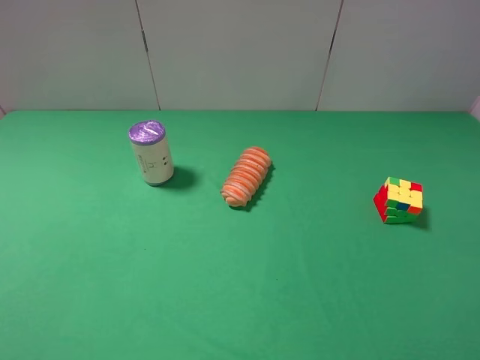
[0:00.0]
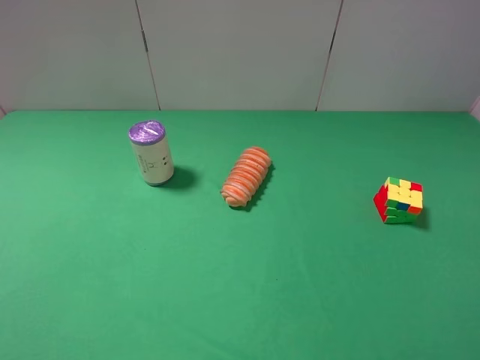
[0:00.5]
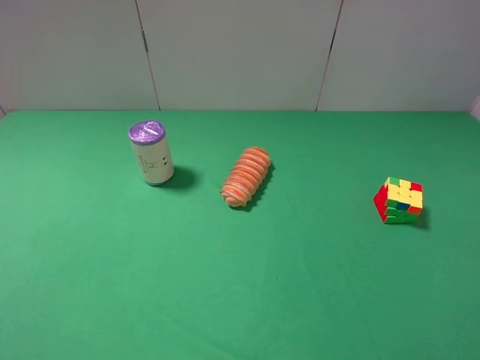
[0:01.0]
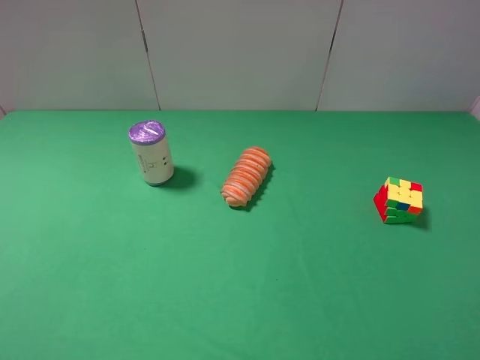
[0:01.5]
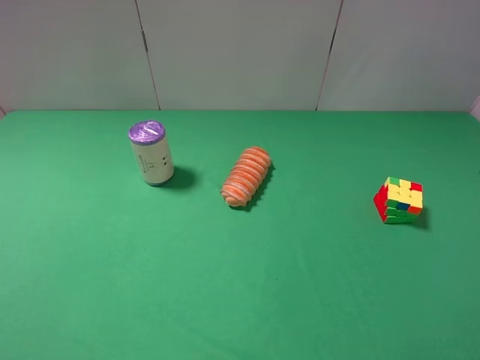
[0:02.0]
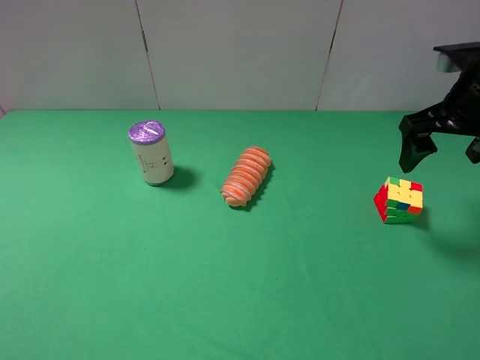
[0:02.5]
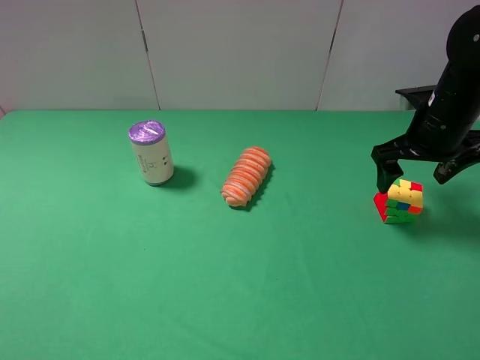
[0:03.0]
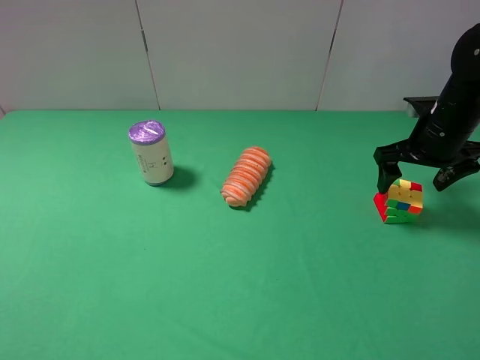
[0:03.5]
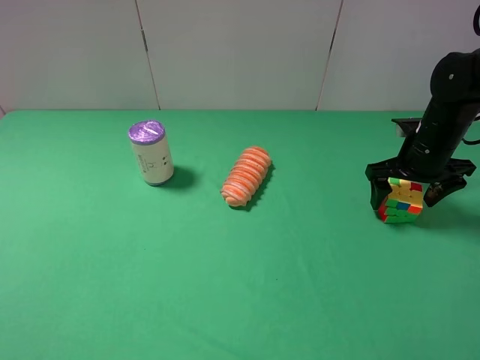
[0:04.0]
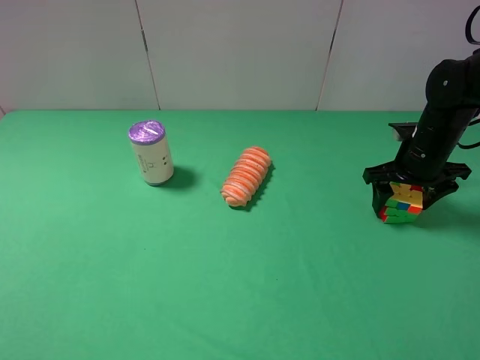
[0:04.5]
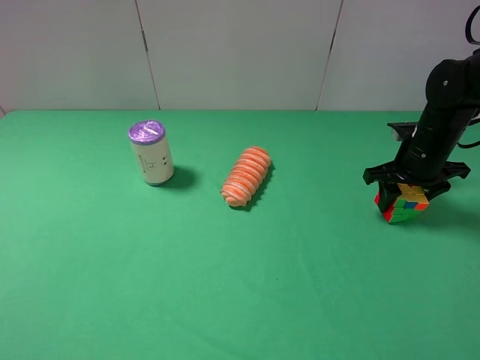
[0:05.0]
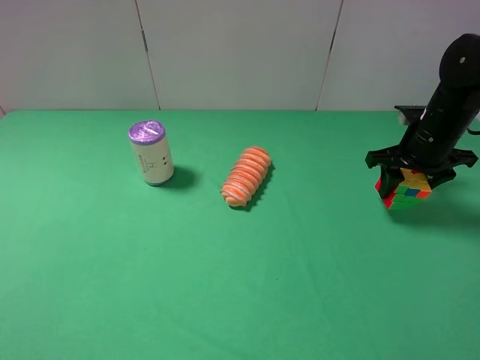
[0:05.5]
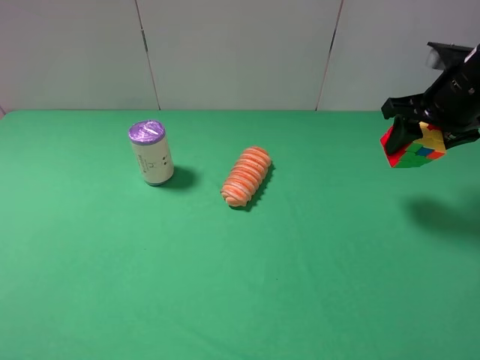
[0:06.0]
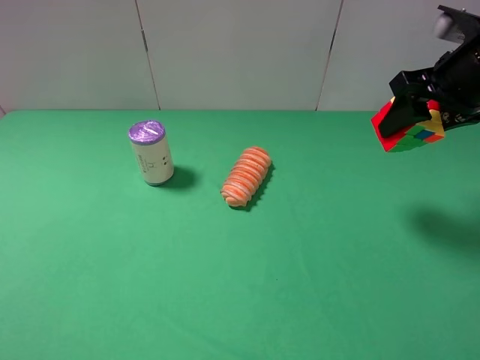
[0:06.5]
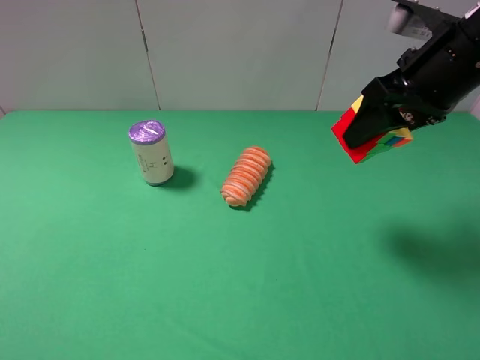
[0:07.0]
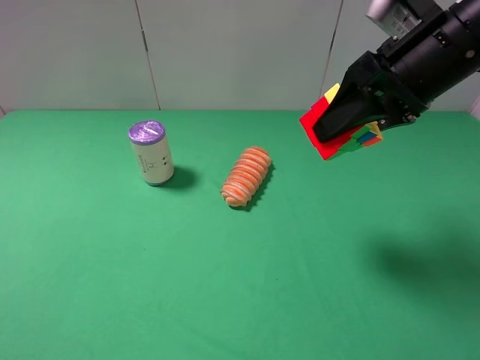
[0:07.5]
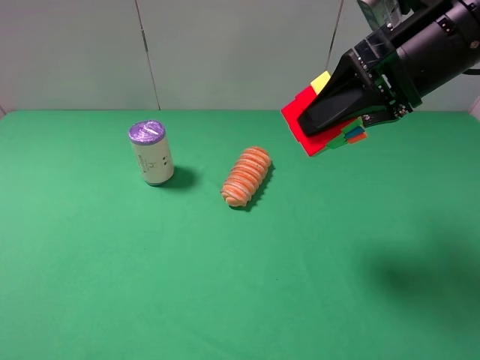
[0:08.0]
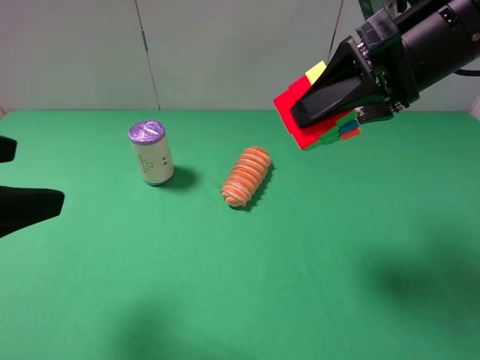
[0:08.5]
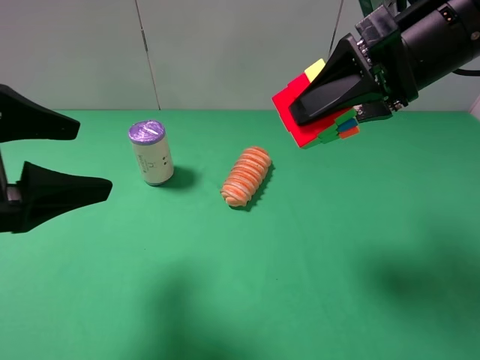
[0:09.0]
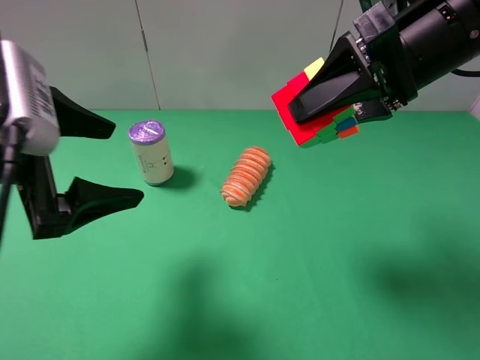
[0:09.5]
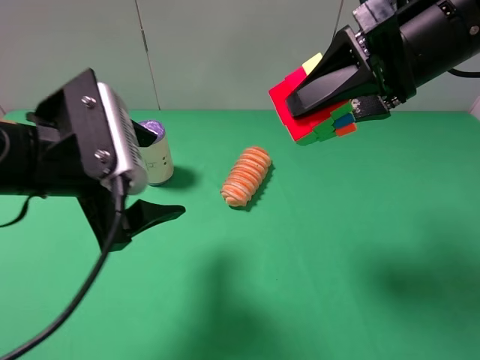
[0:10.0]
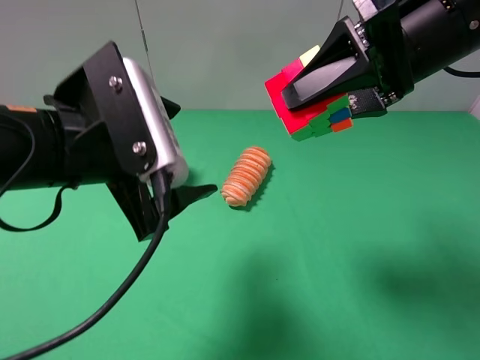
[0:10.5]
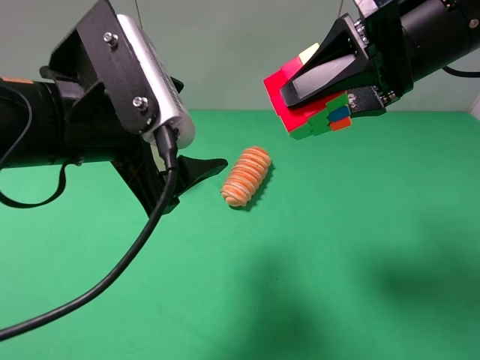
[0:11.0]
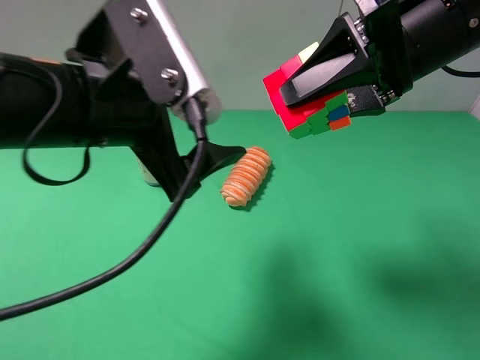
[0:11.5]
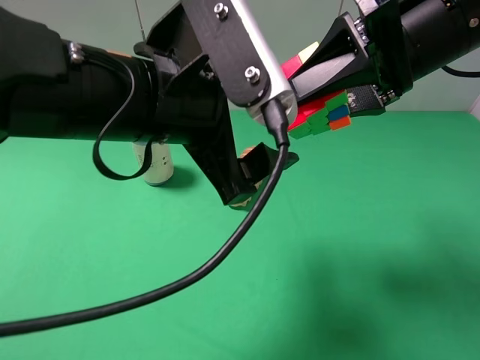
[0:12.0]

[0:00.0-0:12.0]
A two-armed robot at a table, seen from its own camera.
Task of the whole recording: use the right gripper to pick up the item and transfer it from the right gripper to the left gripper.
Step, 0:00.0 to 0:04.5: Use the right gripper to grab the Rubik's Cube on the right side of the table.
0:02.0 to 0:04.0: The right gripper goes roughly 25 cm forward and downward.
0:04.0 to 0:06.0: The right gripper is displaced upward by roughly 10 cm, and closes up.
0:06.0 to 0:08.0: The right gripper travels to the left, upward and backward by some 15 cm.
0:08.0 to 0:10.0: The left gripper goes some 20 cm forward and to the right.
0:10.0 to 0:12.0: The left gripper heads to the right, covering about 10 cm.

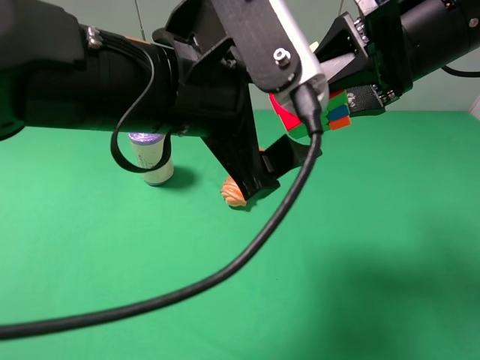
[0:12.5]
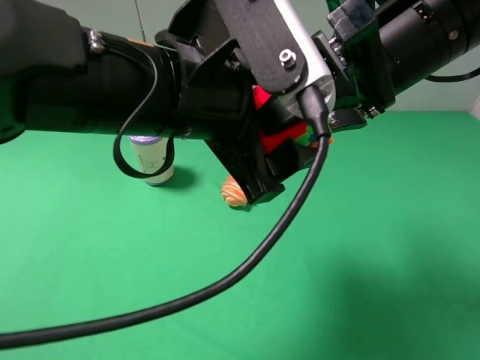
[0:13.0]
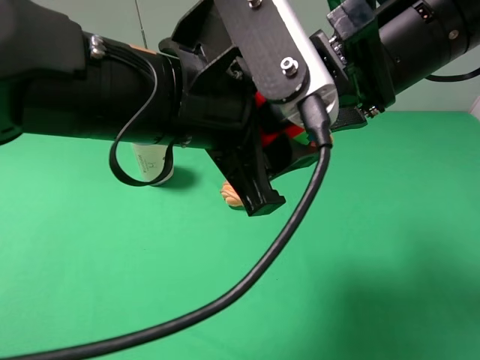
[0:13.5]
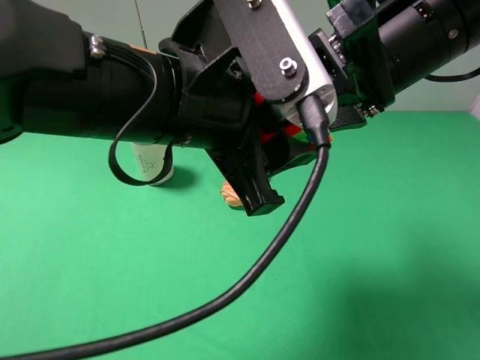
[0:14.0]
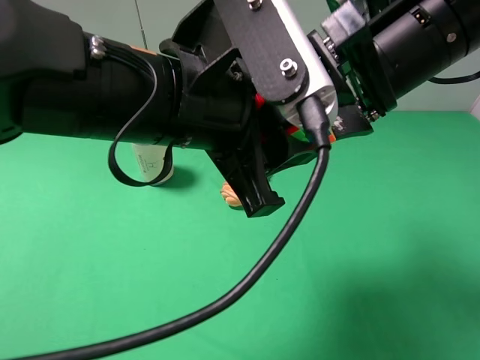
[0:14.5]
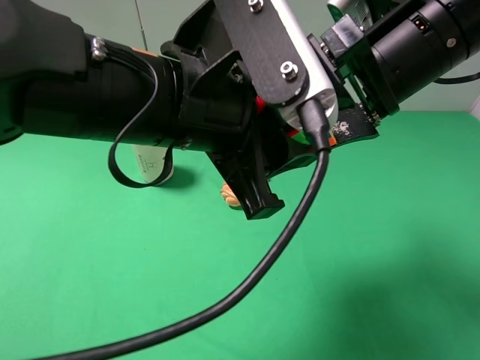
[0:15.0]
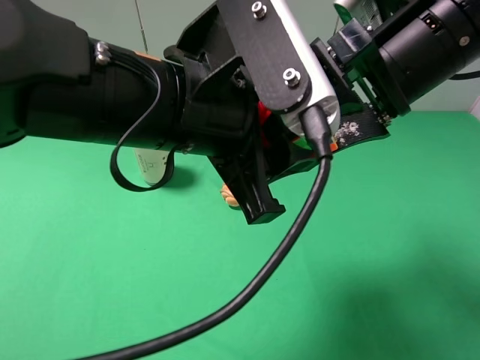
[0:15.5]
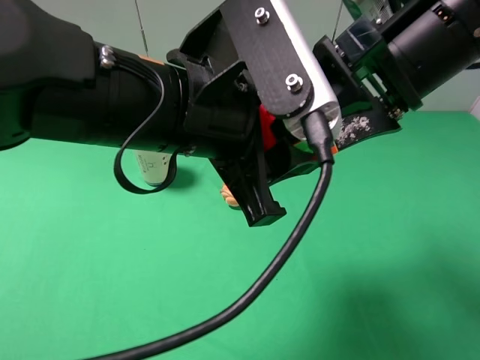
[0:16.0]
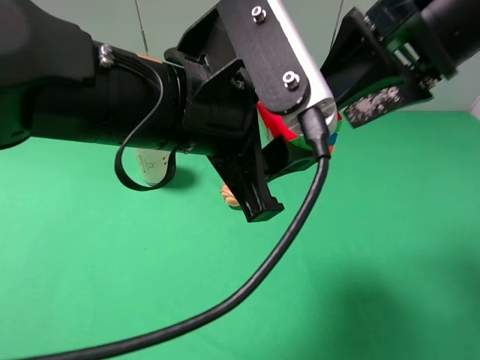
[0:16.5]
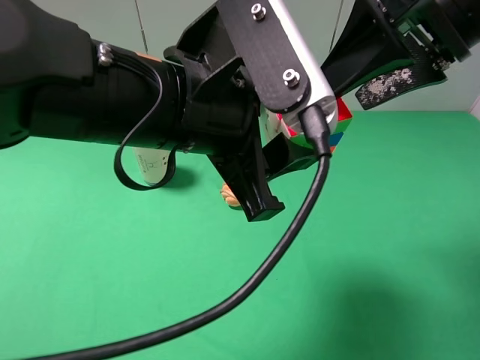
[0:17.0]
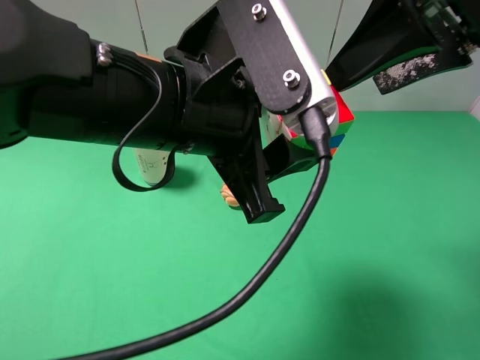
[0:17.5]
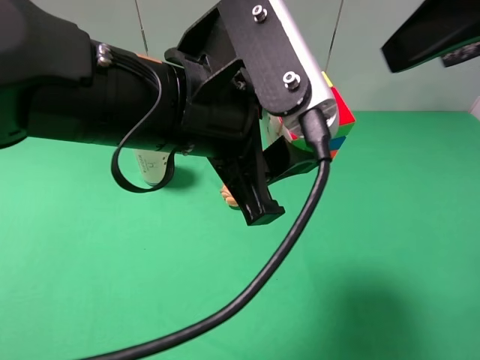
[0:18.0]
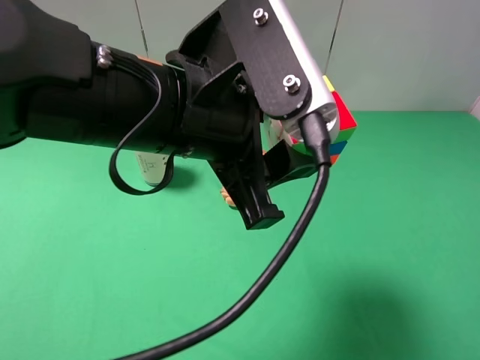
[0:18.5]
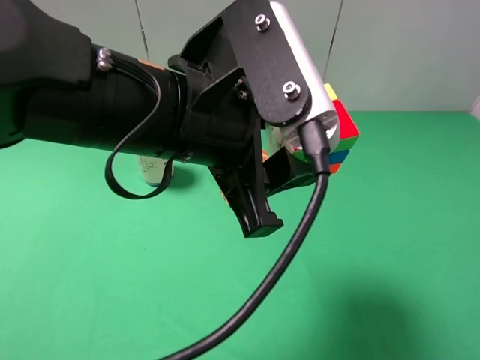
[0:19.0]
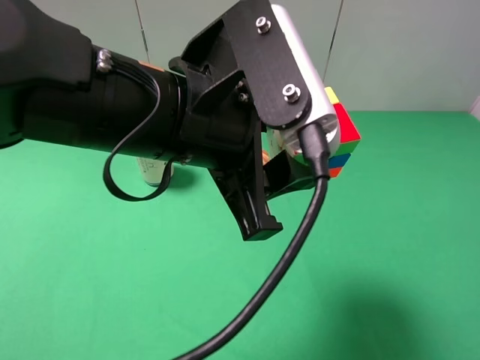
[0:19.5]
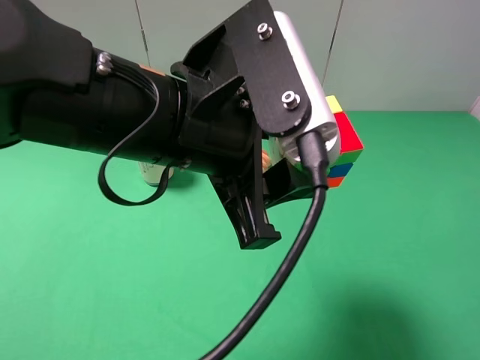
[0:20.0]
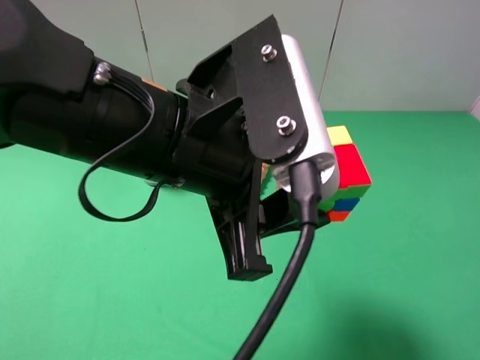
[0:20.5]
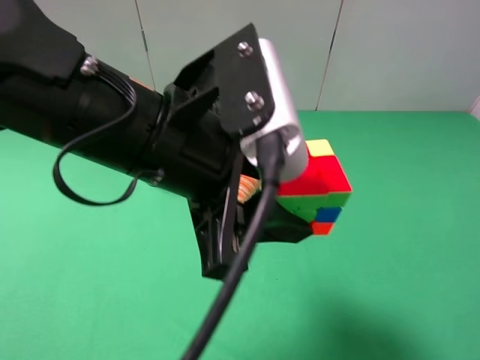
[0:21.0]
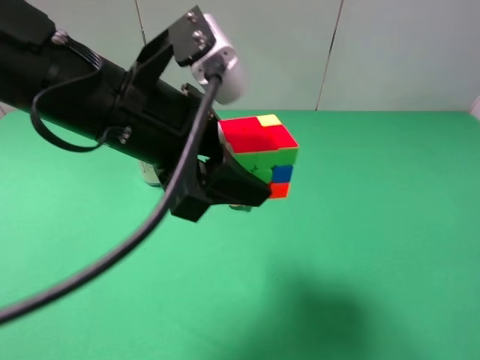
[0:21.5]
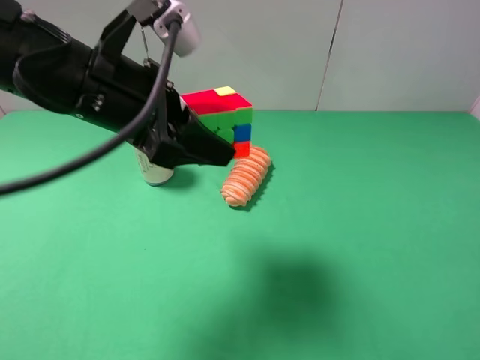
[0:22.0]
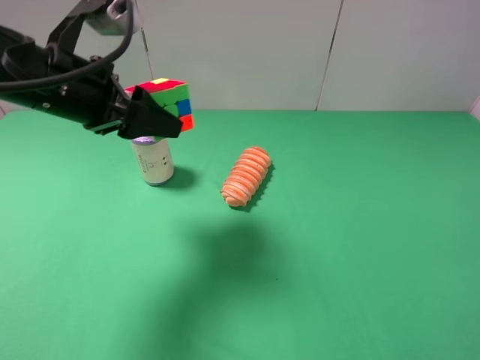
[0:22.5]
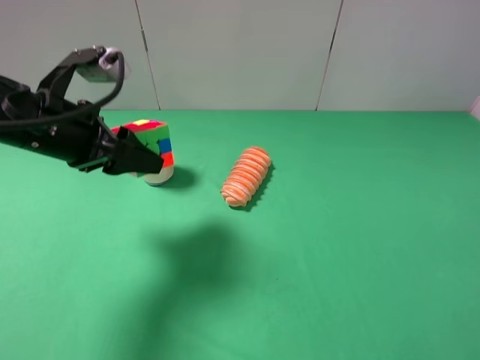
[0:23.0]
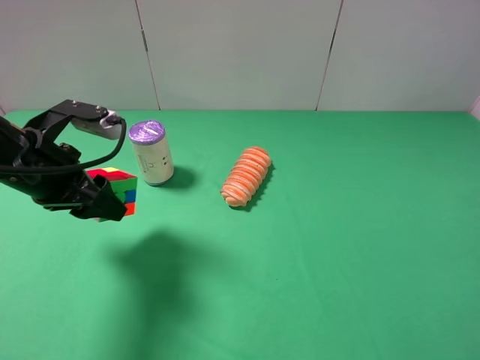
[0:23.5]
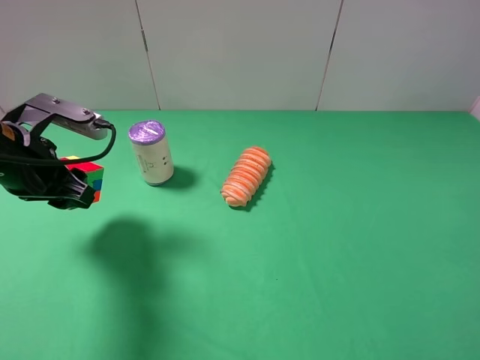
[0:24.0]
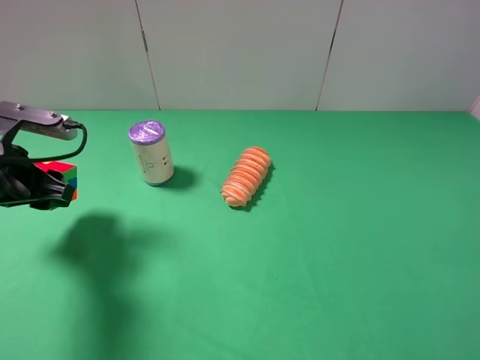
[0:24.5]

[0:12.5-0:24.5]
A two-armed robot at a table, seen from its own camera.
Task of the whole recording: use the right gripper to pick up the item and transfer it from the right gripper to the left gripper.
Step, 0:12.5 to 0:14.5: Pass the Rubik's Cube to the left gripper.
0:12.5 to 0:14.5: The left gripper closes its fingers. The right gripper opens its fingers.
0:14.5 to 0:16.5: The grippers stay close to where they were, moving slightly.
0:16.5 to 0:18.5: The right gripper goes approximately 15 cm backward, to the right and upward.
0:18.5 to 0:20.5: The right gripper goes approximately 20 cm downward and backward.
0:20.5 to 0:22.5: The left gripper travels to the left and forward by roughly 20 cm.
0:22.5 to 0:24.5: The left gripper heads to the left and downward, covering roughly 10 cm.

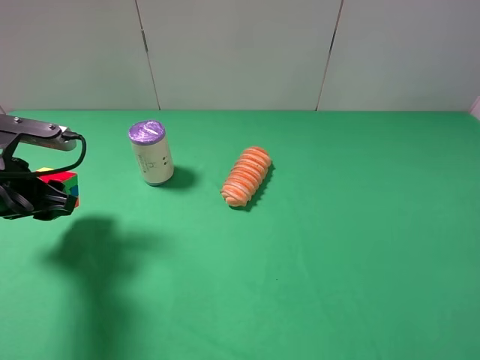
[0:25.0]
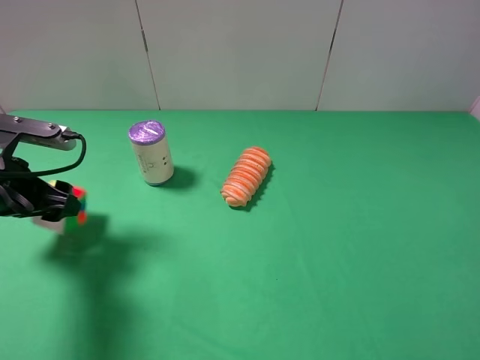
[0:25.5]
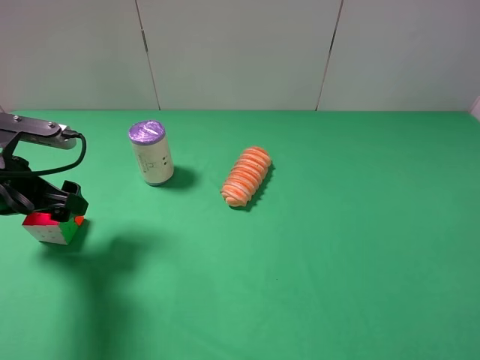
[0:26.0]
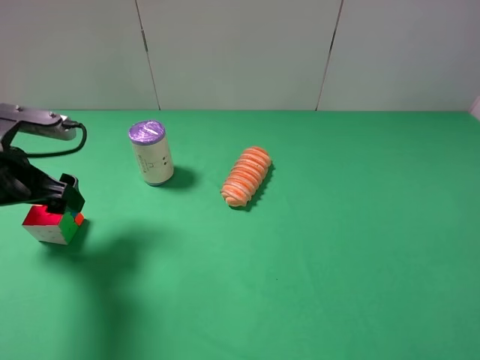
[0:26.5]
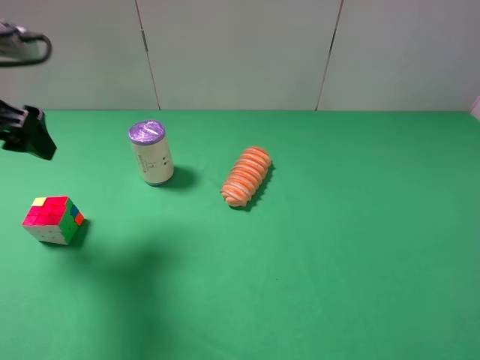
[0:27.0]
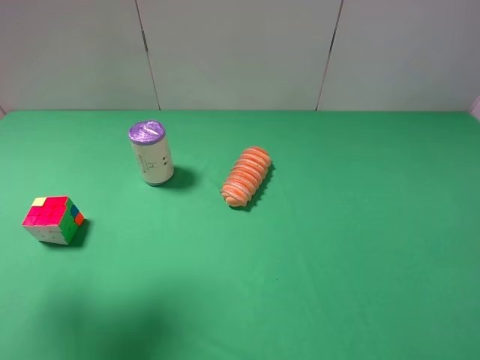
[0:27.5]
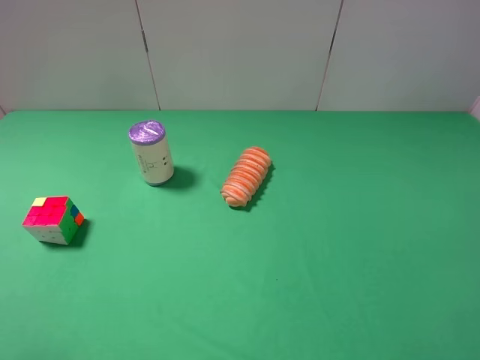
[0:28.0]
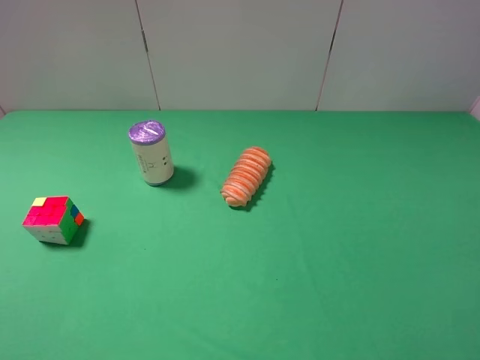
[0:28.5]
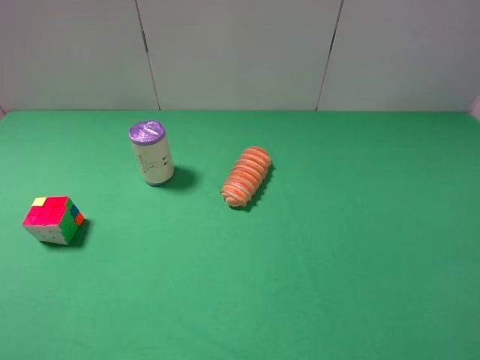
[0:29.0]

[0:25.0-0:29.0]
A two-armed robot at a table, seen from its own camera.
Task of the whole recording: use the right gripper to pick up the item and transfer it from the right gripper to the left gripper.
0:25.0 to 0:27.0: The left gripper shifts about 10 cm upward, and opens.
0:27.0 to 0:29.0: The left gripper shifts roughly 25 cm backward.
